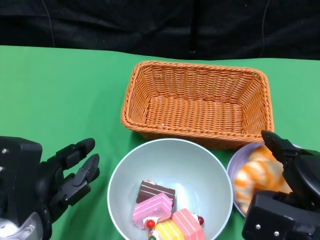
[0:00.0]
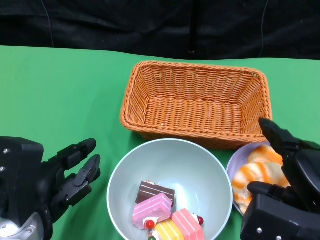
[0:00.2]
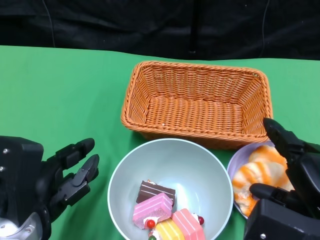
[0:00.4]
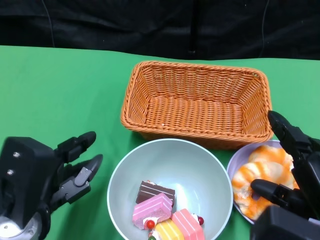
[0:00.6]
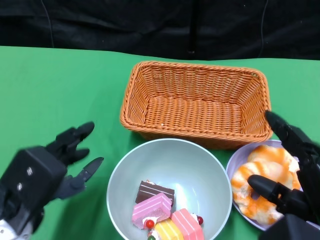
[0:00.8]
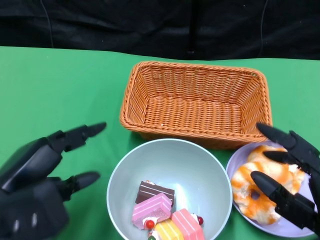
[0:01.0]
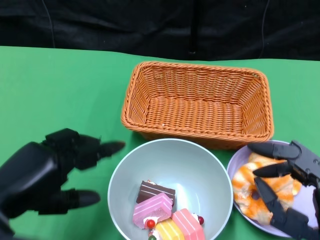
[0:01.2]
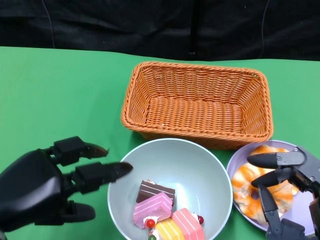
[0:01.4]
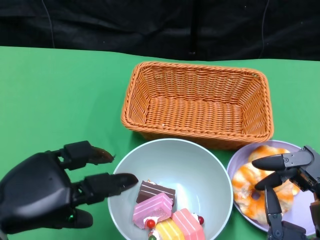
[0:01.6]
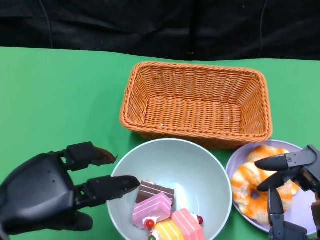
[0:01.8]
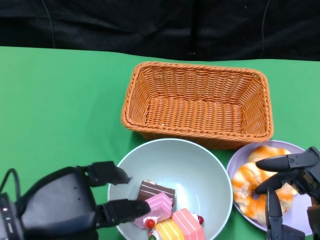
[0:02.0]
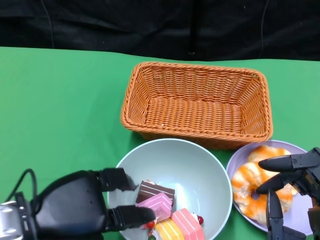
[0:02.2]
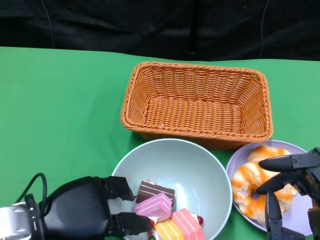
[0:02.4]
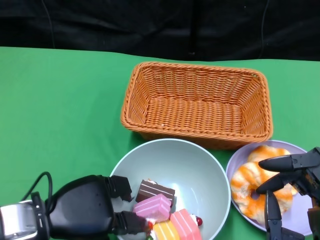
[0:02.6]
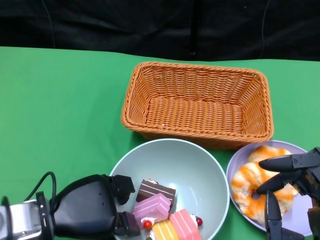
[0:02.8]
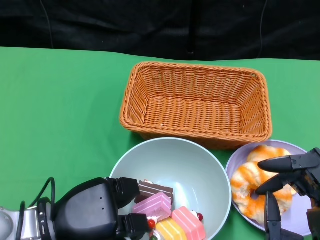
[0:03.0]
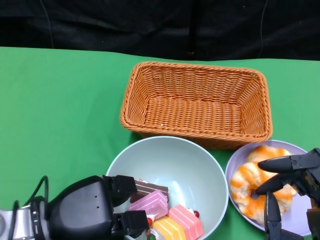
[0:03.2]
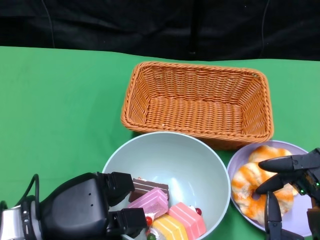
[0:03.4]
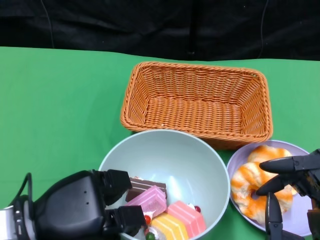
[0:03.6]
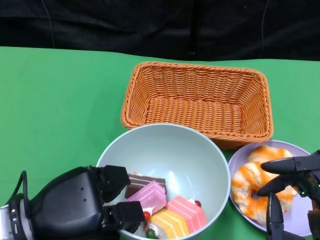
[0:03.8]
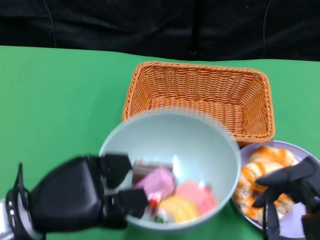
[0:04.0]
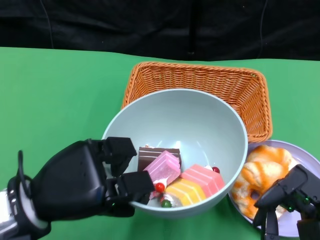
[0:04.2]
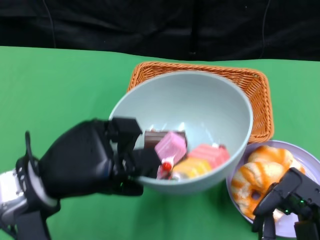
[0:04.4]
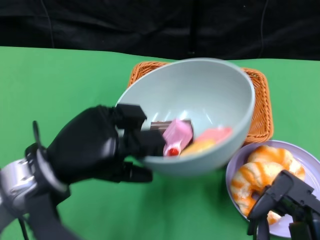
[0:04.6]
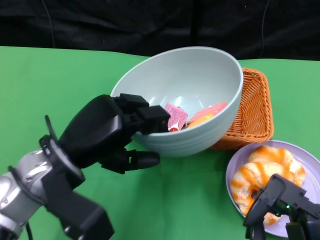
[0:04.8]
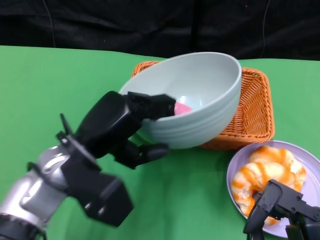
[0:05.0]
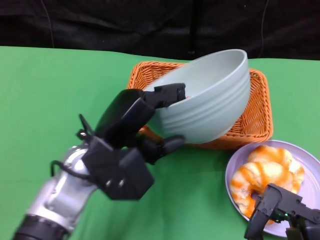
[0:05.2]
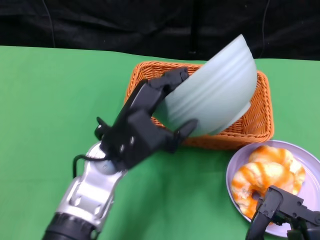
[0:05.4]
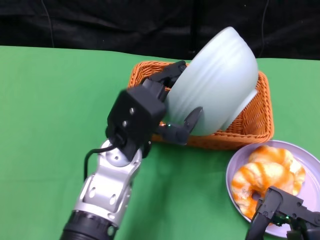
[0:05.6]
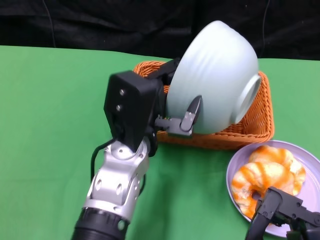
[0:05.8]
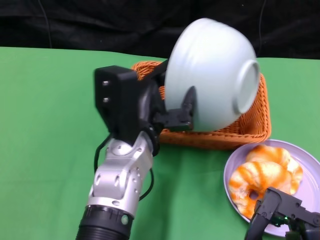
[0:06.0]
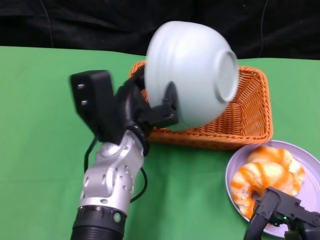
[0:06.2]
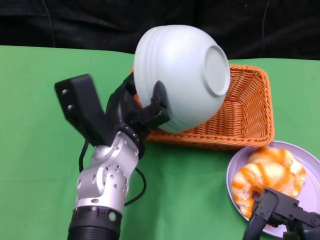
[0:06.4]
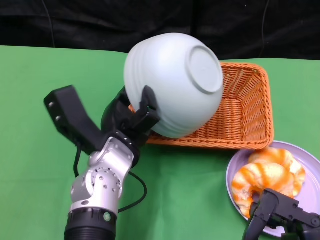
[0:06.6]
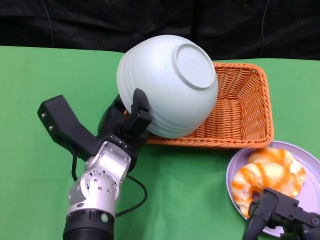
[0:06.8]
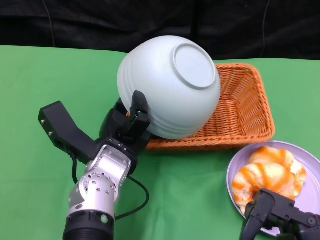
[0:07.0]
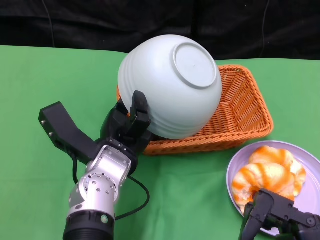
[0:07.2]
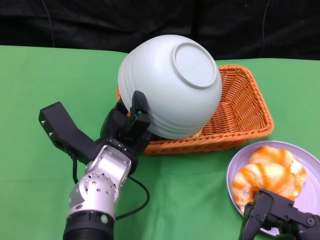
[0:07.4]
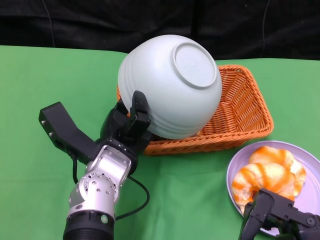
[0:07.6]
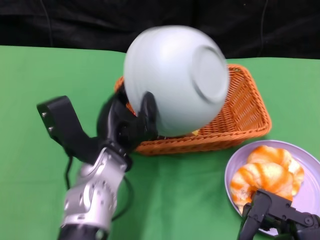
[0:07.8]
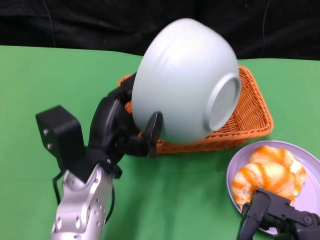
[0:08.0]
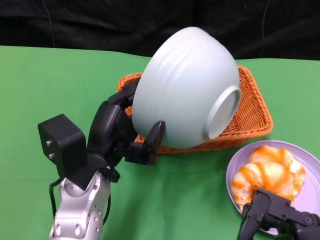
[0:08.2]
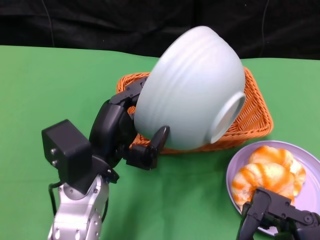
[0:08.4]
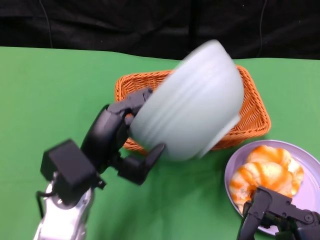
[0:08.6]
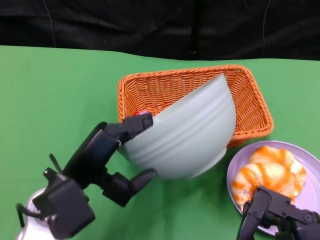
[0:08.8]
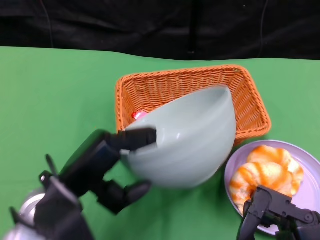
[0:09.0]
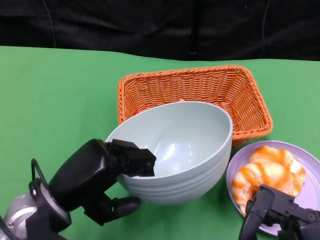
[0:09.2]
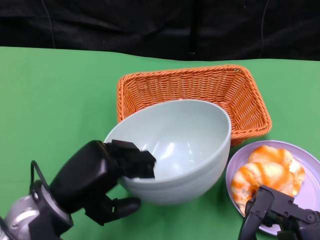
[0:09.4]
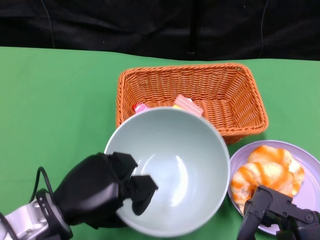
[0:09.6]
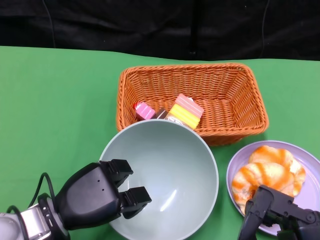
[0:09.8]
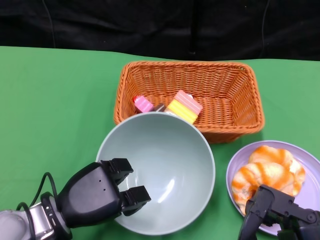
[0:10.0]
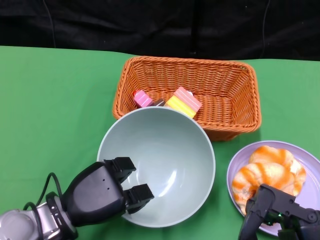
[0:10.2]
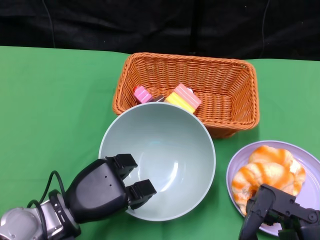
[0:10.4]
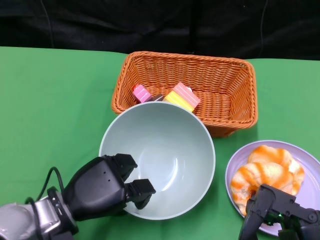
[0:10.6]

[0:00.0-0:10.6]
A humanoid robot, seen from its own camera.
Step, 0:00.6 to 0:03.0: Grasp the bowl with the left gripper.
Step, 0:03.2 to 0:08.0: Pour the cake into the basket with the left gripper.
0:00.0 to 0:01.6: The left hand shifts by roughly 5 cm; the right hand shifts about 5 cm backward.
0:01.6 to 0:03.0: The left hand shifts about 10 cm downward and to the right.
0:03.0 to 0:04.6: The left hand is displaced upward by approximately 10 cm.
0:04.6 to 0:06.0: The left hand shifts some 10 cm to the right.
0:06.0 to 0:07.6: The left hand shifts by about 5 cm.
0:07.6 to 0:09.0: The left hand heads to the left and backward, covering about 10 cm.
0:09.0 to 0:10.6: The left hand is displaced downward by roughly 5 cm.

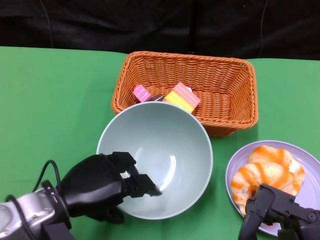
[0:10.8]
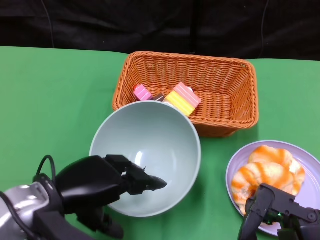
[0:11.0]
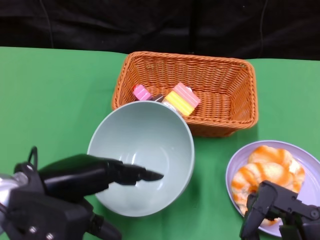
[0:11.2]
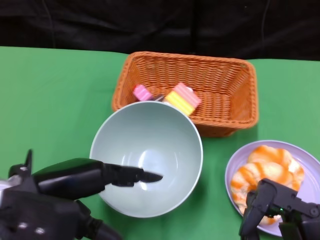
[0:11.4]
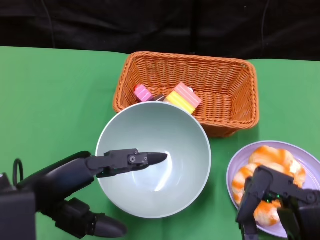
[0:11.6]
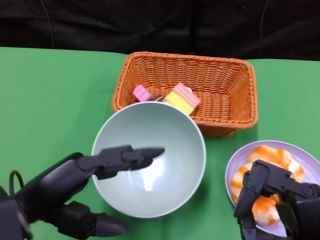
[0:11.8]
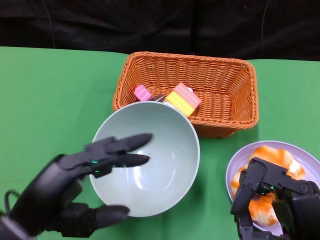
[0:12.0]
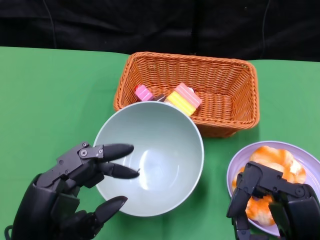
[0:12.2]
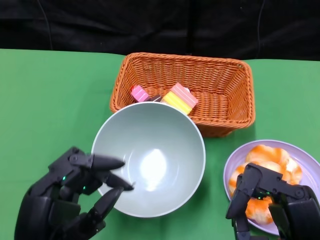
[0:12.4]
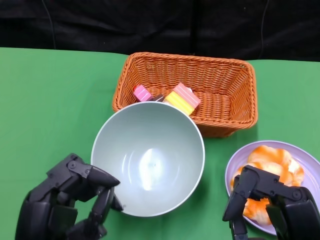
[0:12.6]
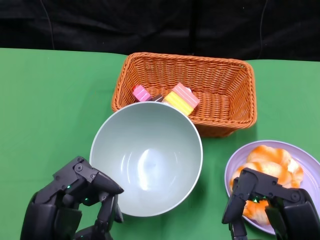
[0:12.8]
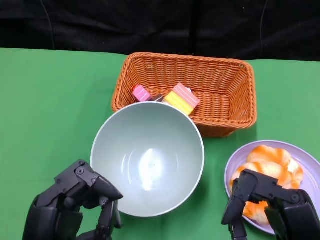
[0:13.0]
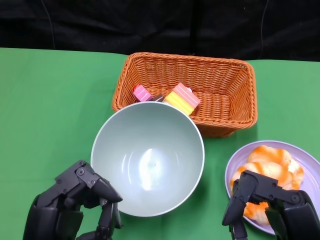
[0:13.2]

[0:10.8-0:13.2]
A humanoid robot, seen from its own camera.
0:10.8 to 0:12.0: The left hand moves backward and upward, roughly 10 cm.
0:12.0 to 0:13.2: The left hand ends up approximately 5 cm from where it was.
